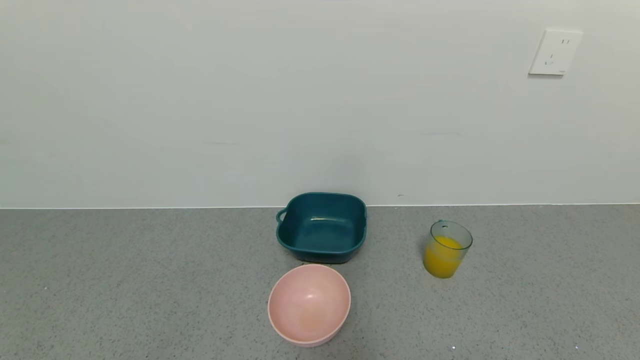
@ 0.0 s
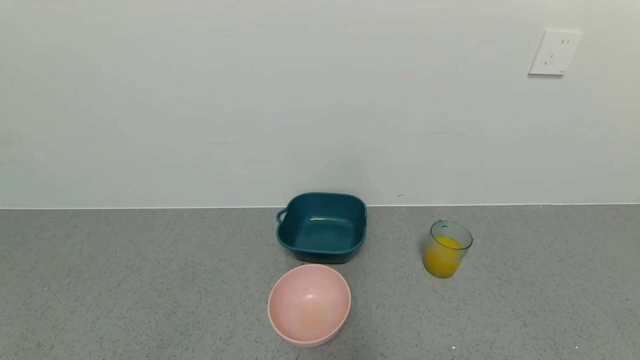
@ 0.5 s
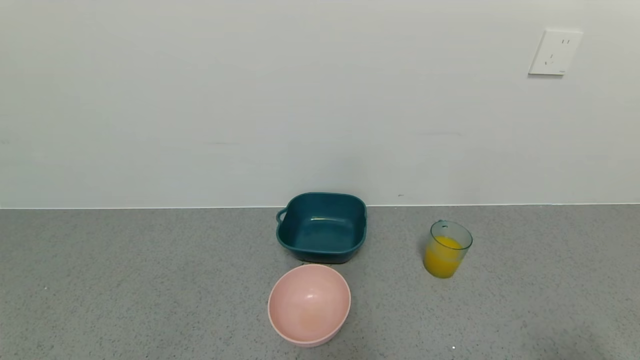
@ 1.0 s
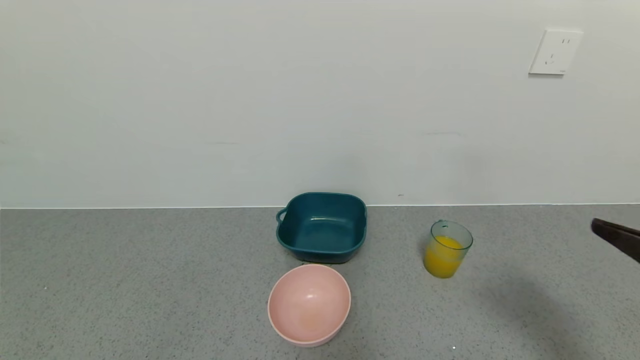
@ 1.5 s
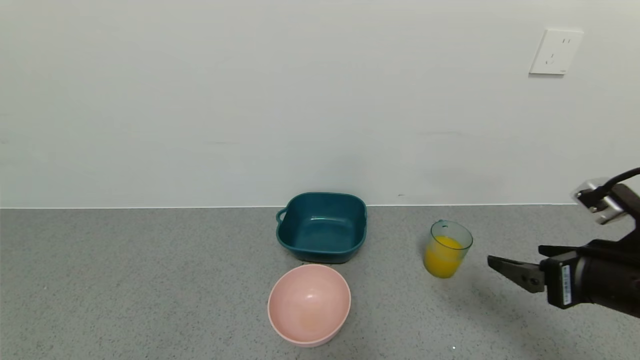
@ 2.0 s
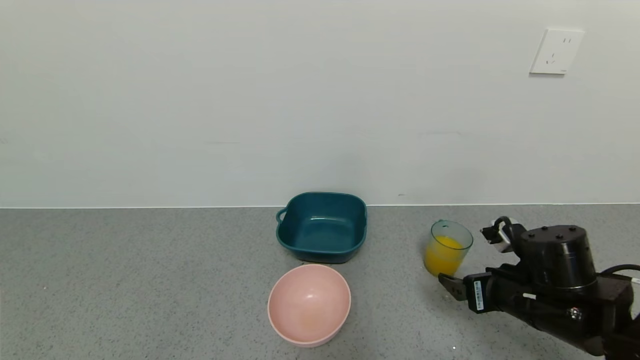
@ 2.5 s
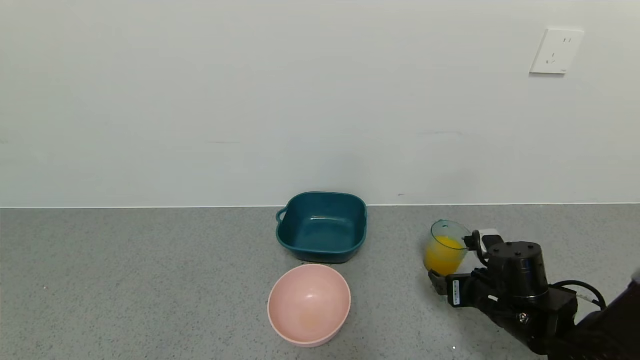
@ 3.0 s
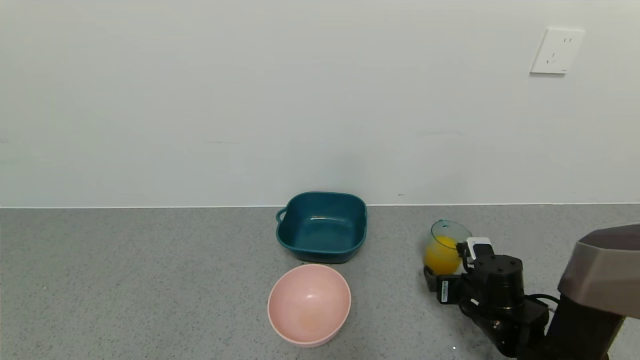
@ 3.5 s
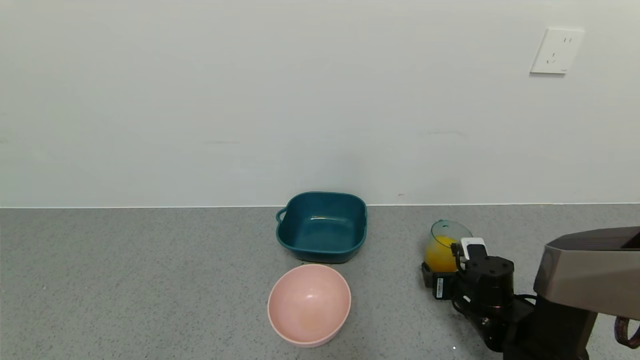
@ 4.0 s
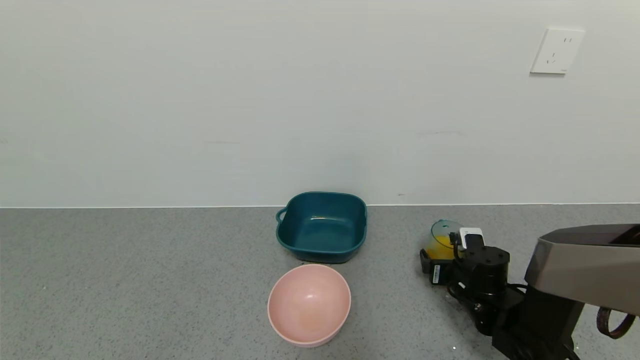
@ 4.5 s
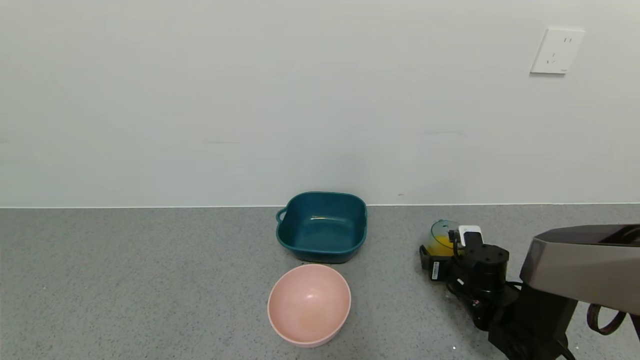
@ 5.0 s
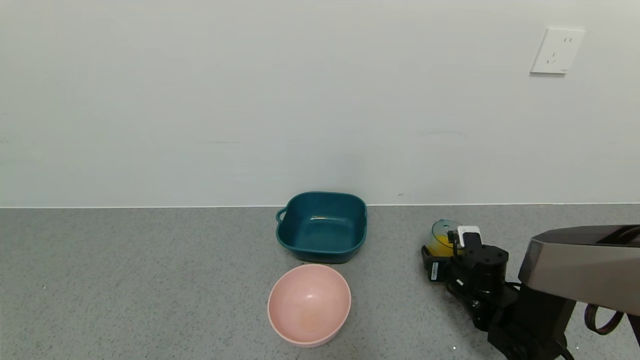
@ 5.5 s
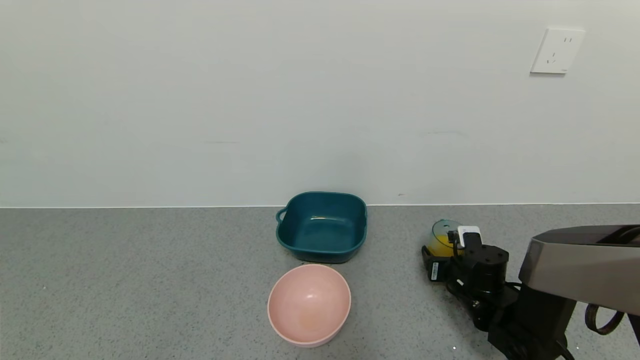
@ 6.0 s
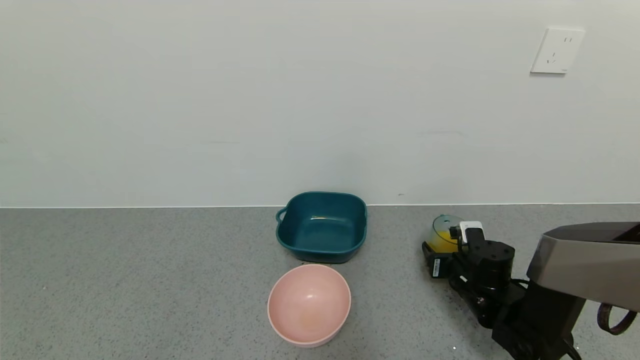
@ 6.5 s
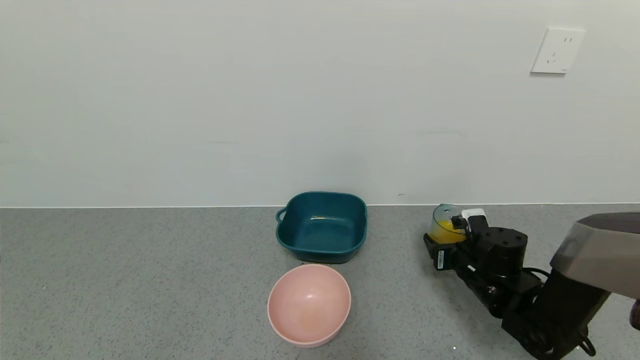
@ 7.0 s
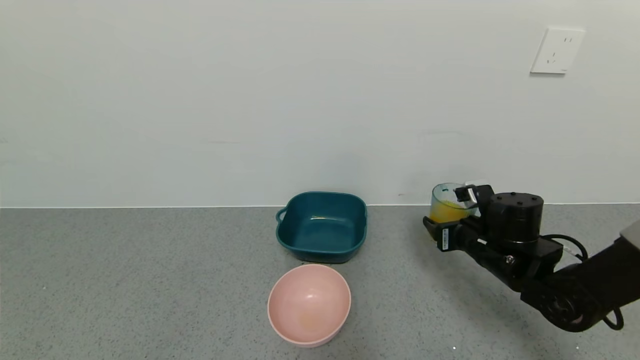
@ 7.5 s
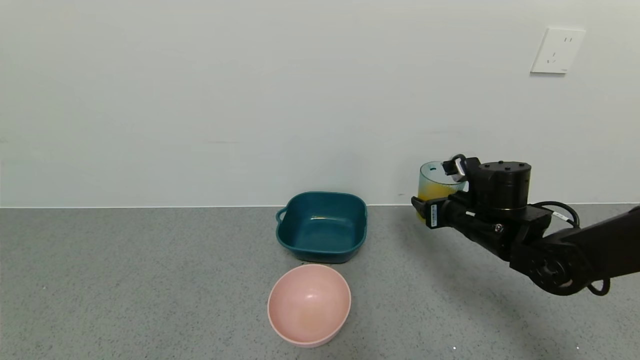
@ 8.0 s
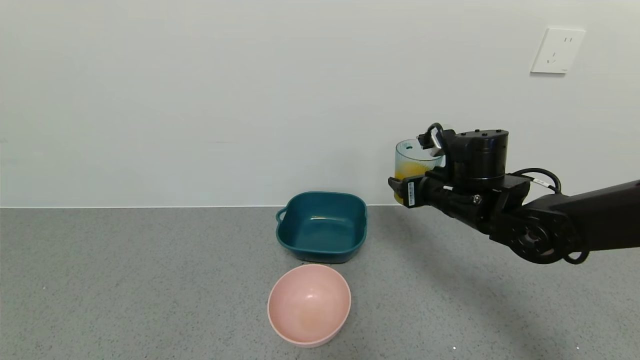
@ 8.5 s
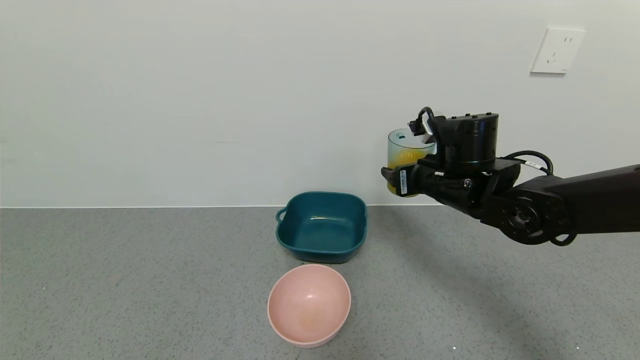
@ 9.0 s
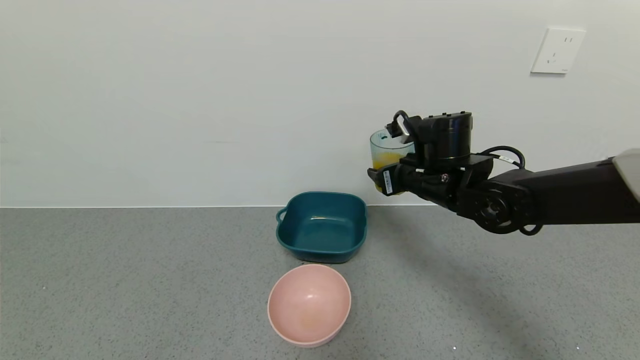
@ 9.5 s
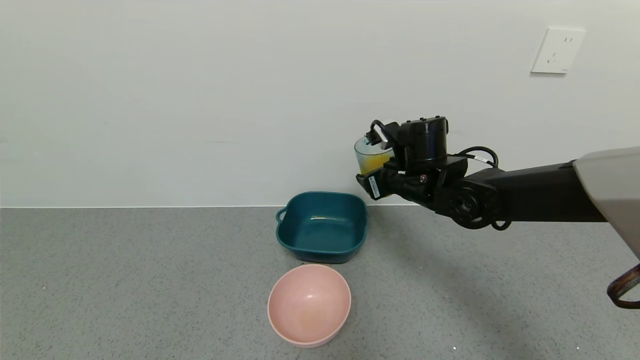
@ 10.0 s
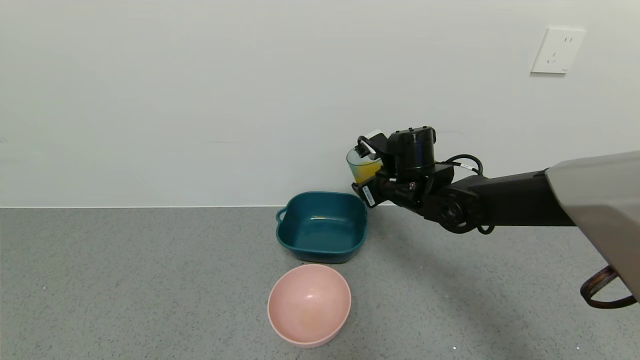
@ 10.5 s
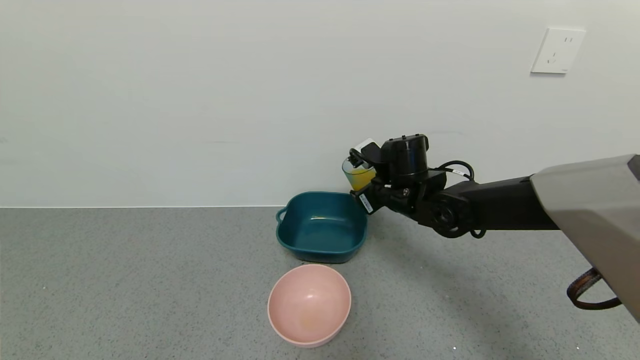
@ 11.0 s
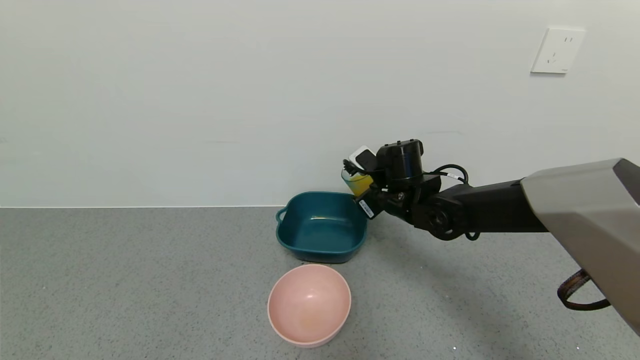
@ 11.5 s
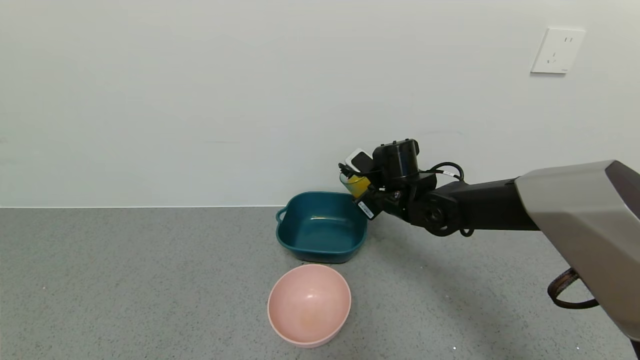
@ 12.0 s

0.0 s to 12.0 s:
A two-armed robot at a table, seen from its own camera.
Task of the whole recording: use a gripper to pick up the cup and pour the liquid into a bowl or tray.
Step, 0.0 to 6.5 s: Pick up blue cup filled with orange juice with right gripper.
0.0 to 2.0 s: The right gripper travels forward and upward by about 25 cm.
2.0 to 4.0 s: The right gripper shifts approximately 20 cm downward and forward.
4.0 to 6.0 s: The right gripper closes.
6.0 to 8.0 s: The right gripper shifts roughly 15 cm upward.
8.0 to 10.0 s: The right gripper moves to the left, roughly 10 cm.

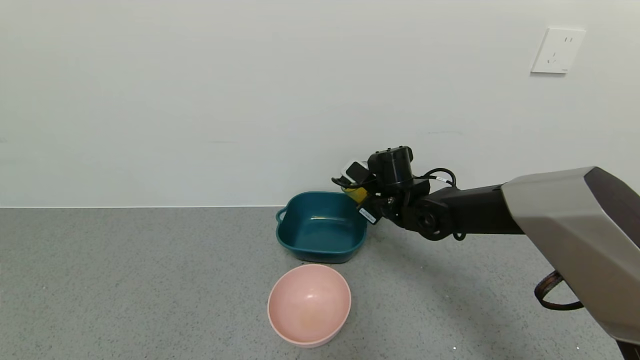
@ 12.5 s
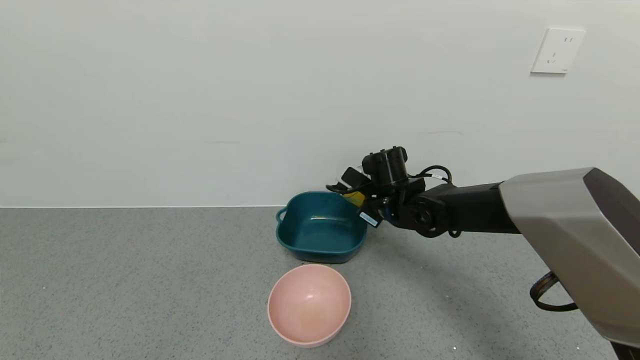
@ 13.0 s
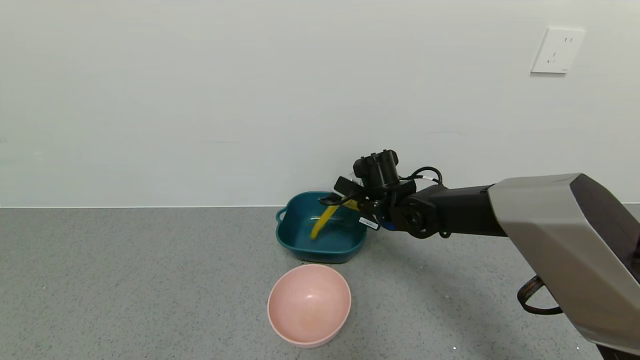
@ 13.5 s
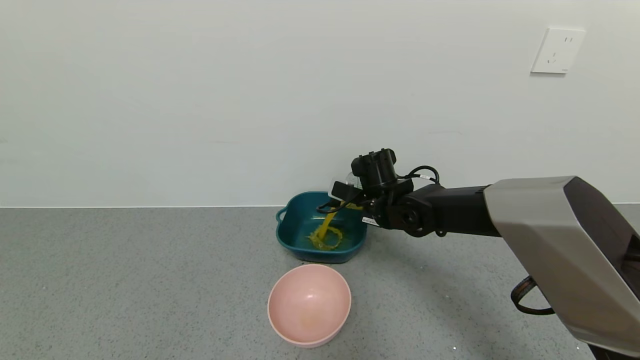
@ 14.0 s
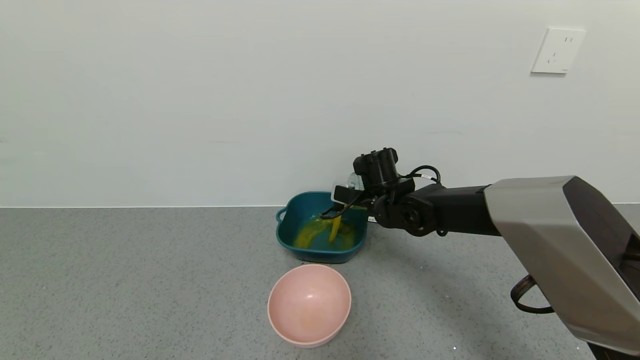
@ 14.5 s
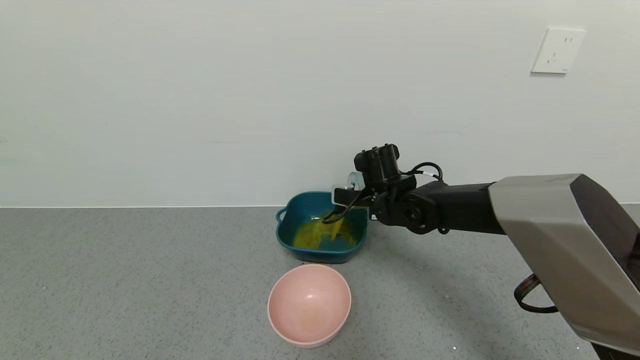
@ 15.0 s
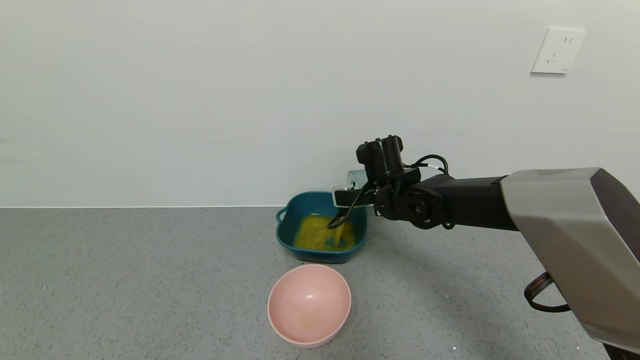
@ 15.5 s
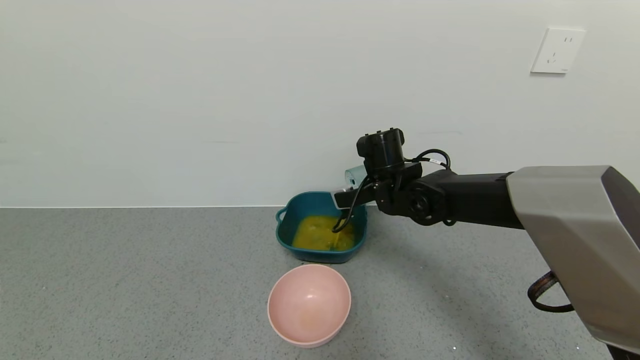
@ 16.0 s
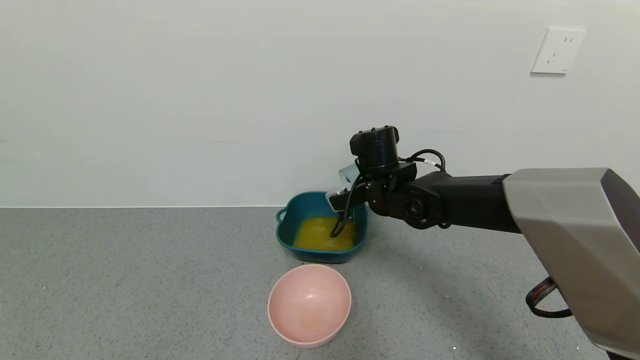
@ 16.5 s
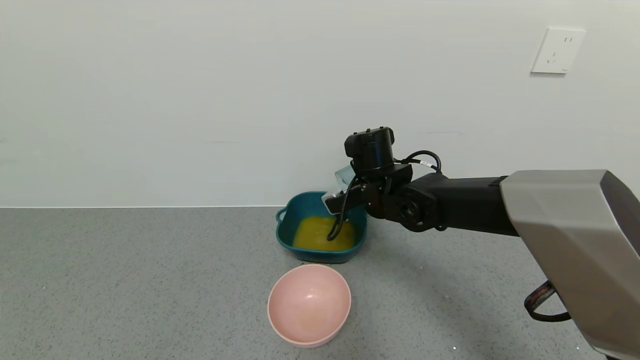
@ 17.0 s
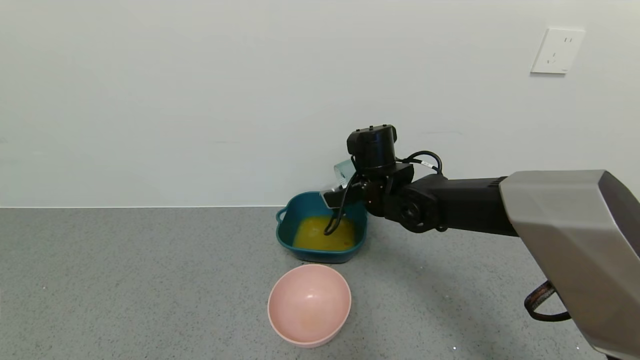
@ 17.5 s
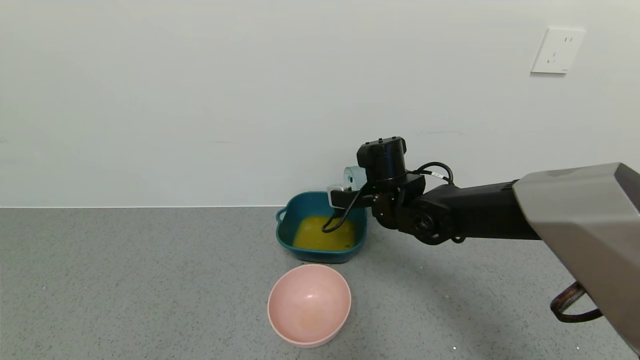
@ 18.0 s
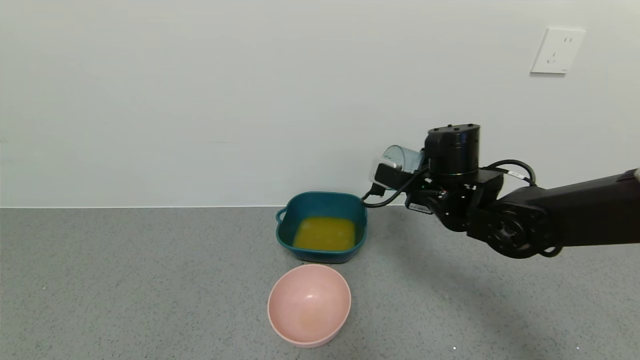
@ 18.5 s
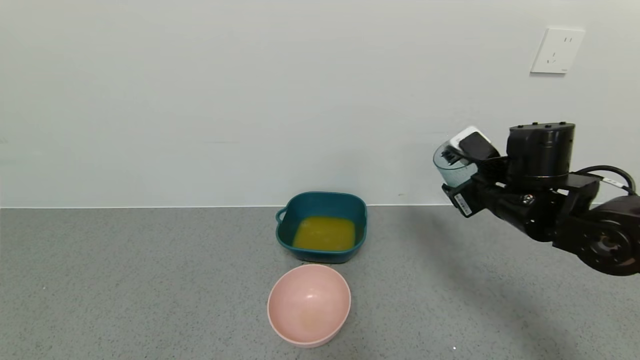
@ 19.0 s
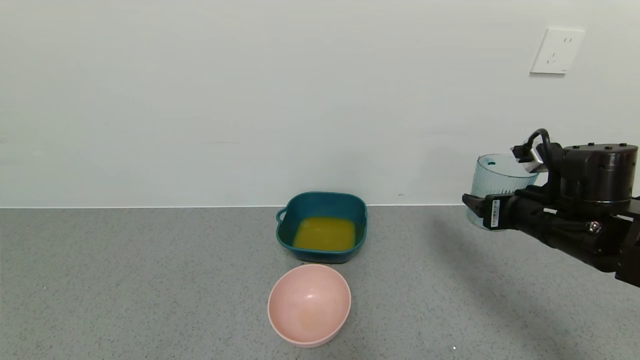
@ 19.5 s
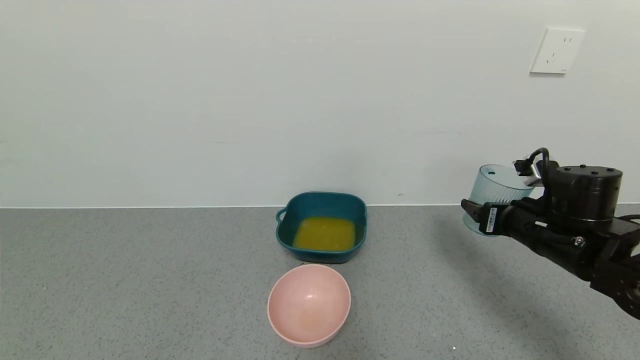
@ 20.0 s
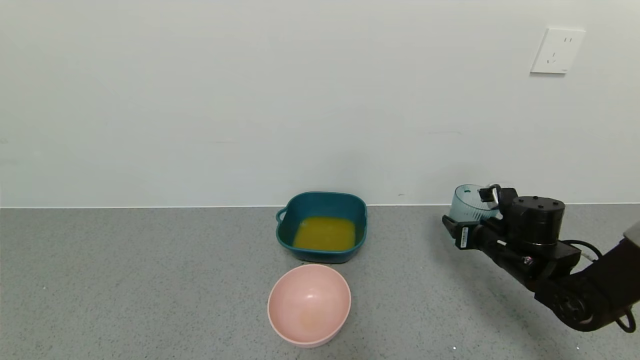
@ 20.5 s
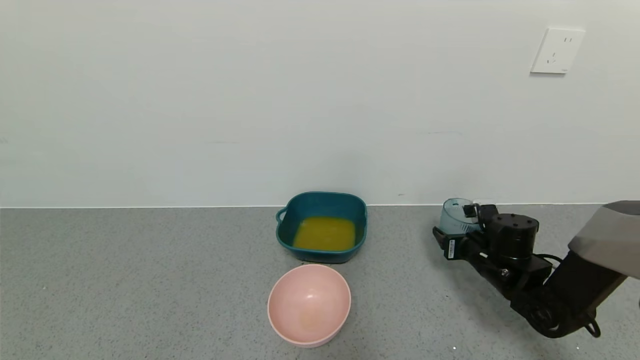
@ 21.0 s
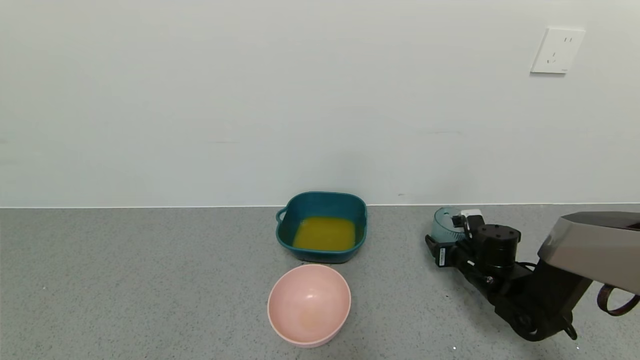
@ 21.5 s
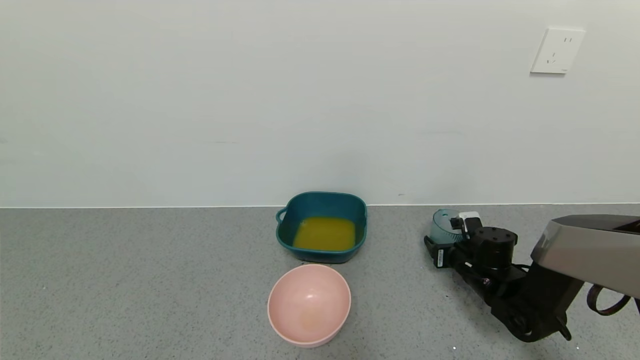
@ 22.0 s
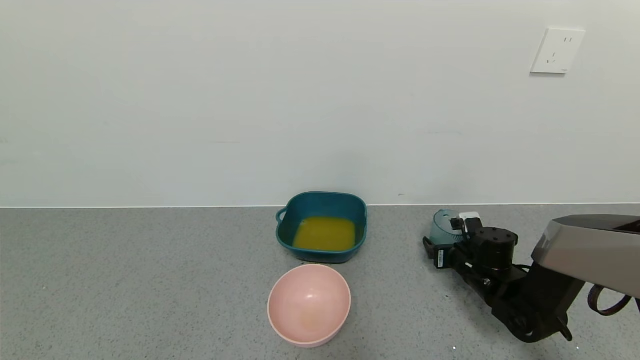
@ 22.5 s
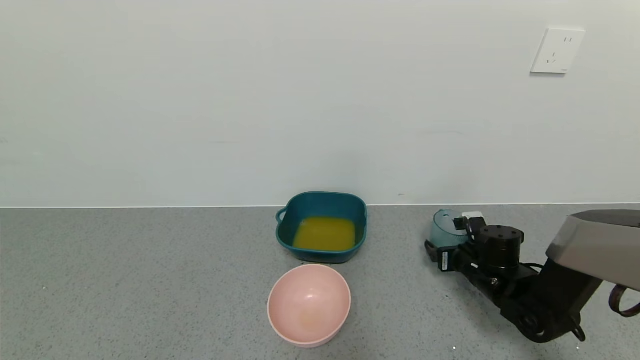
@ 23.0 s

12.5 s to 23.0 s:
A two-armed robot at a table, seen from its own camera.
Task of the whole recording: use a gripper to pick up the cup and pour the liquid into a bowl or tray.
Step, 12.5 to 18.0 s: Pour the orange juice into the blue basin with right gripper.
Step, 18.5 to 22.0 s: Place blue cup with orange juice on the table with right gripper.
16.5 to 19.0 s: The right gripper is displaced to the right and backward by about 20 cm.
19.0 to 21.0 s: The right gripper moves downward, roughly 15 cm.
21.0 to 23.0 s: The right gripper opens.
